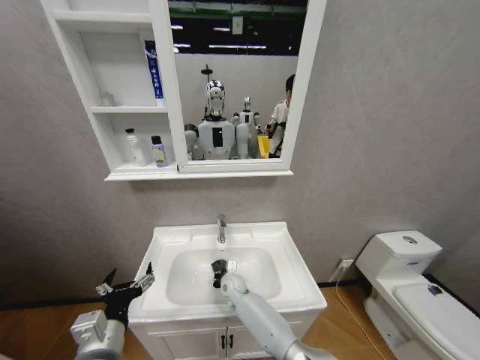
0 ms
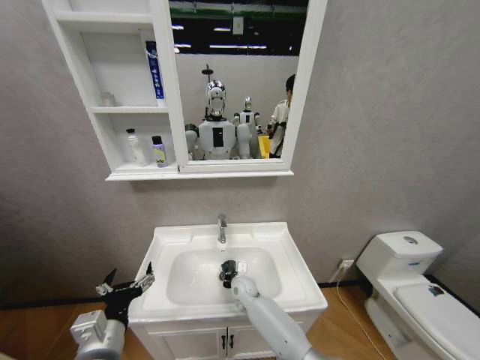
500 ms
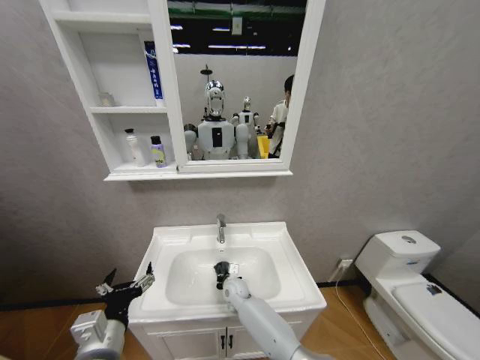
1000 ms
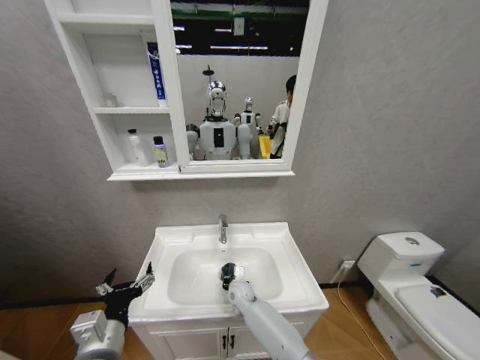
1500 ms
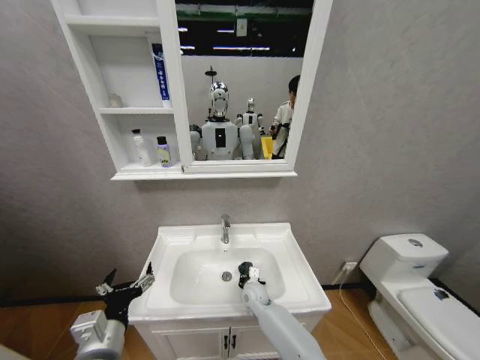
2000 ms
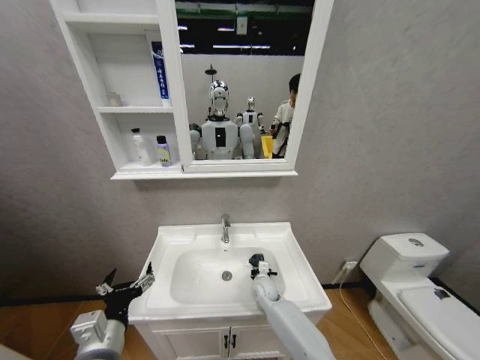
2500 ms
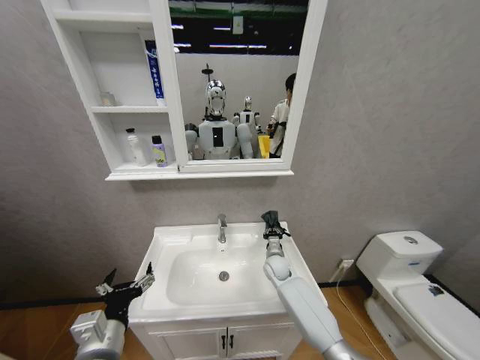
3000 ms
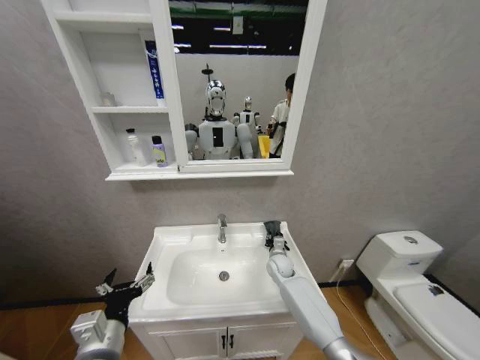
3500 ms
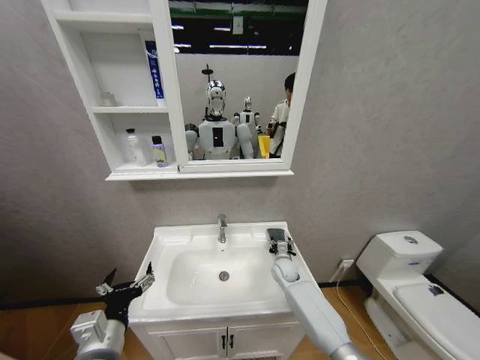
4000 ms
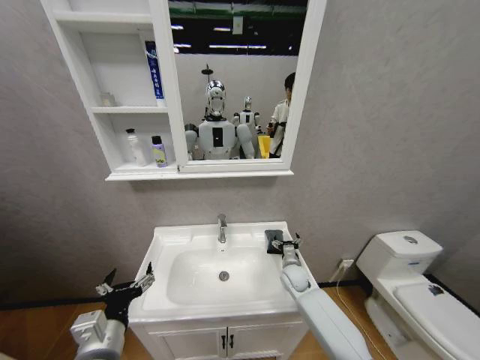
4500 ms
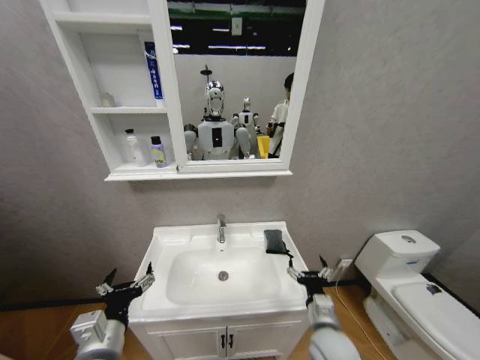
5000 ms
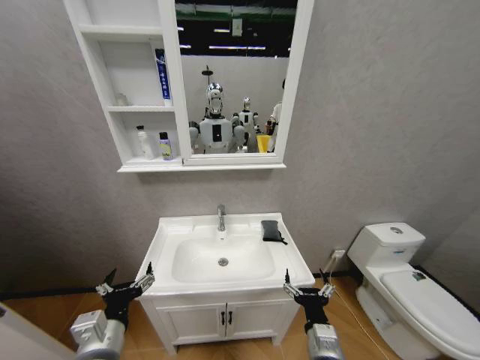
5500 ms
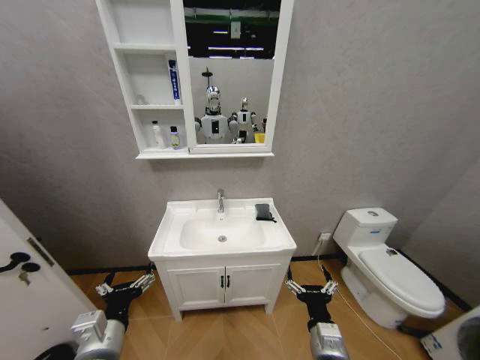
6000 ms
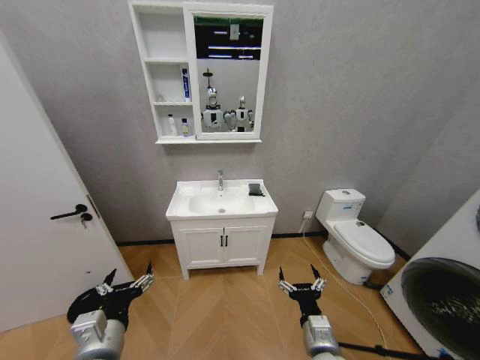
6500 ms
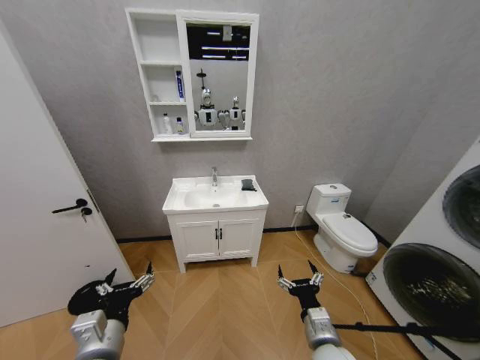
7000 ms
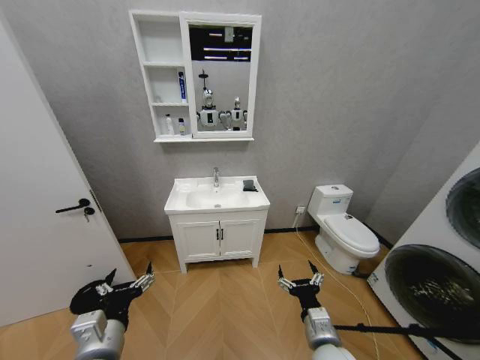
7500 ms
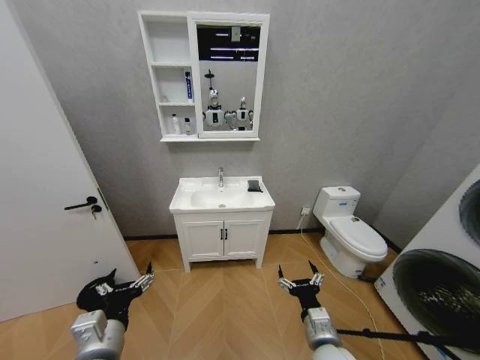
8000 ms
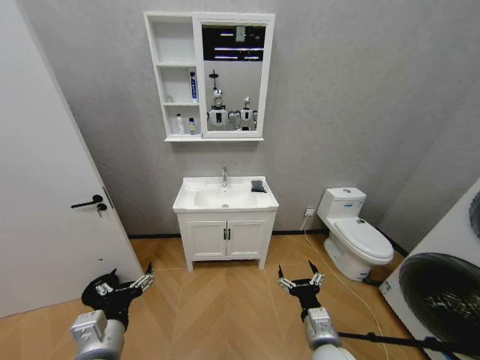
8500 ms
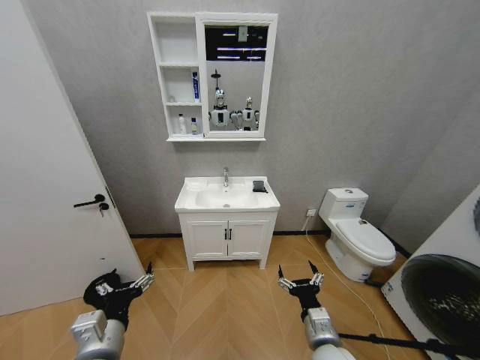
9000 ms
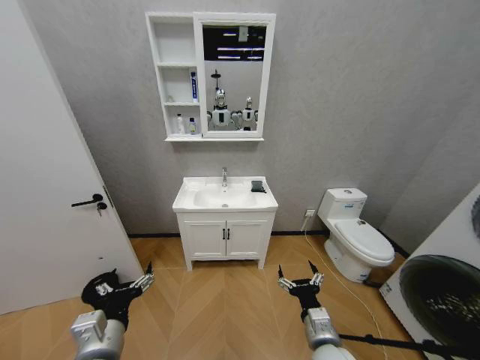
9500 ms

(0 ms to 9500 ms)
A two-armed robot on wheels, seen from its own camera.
Task of the whole recording: Move facial cleanser and shampoo from washbasin to cabinet, then wipe washbasin with towel.
0 ms - 2000 ms: The right gripper is displaced to the right by roughly 10 cm.
2000 ms - 4000 ms: The right gripper heads to the right, forward and upward, covering some 15 cm, and opens its fingers.
4000 ms - 5500 ms: The right gripper travels backward by about 30 cm.
7500 ms - 9500 ms: The two grippers keep their place.

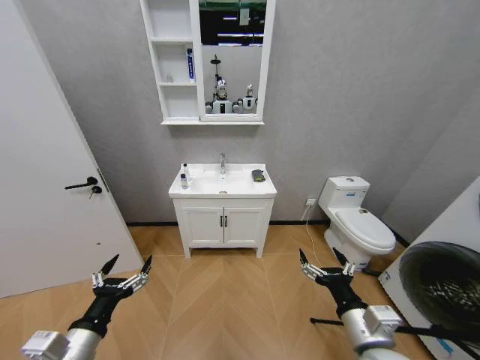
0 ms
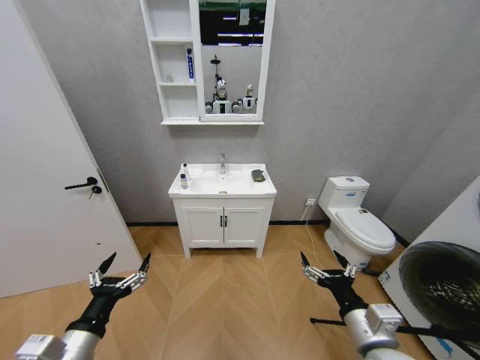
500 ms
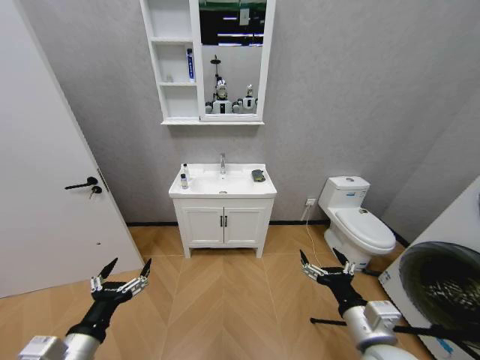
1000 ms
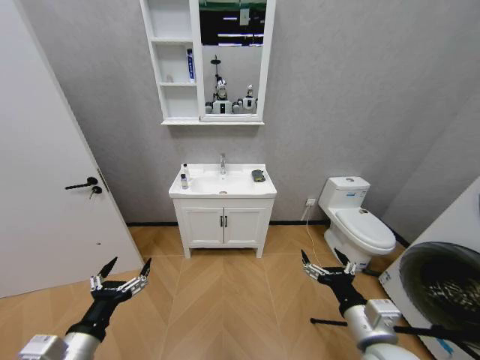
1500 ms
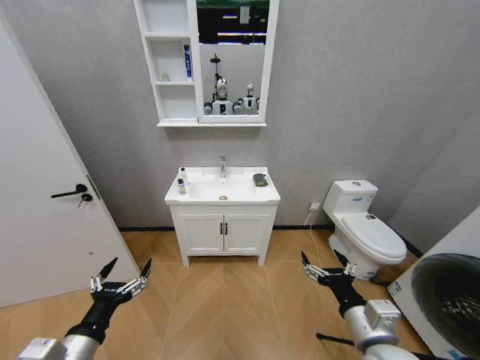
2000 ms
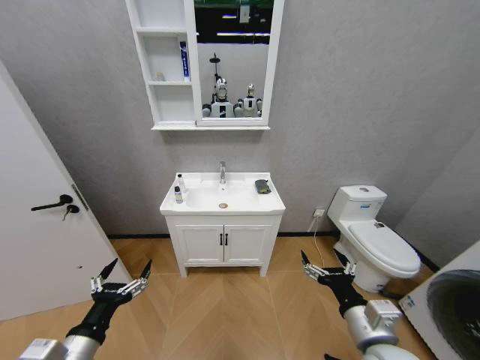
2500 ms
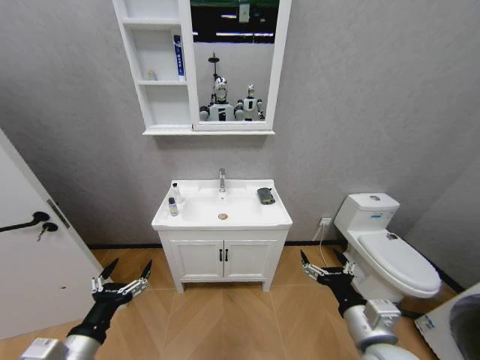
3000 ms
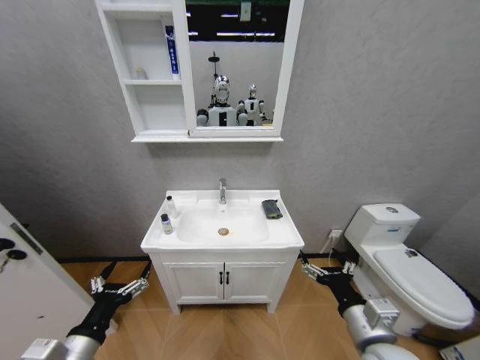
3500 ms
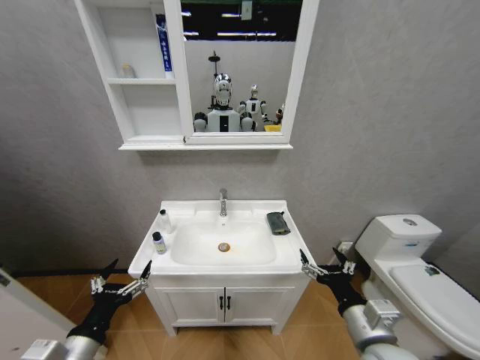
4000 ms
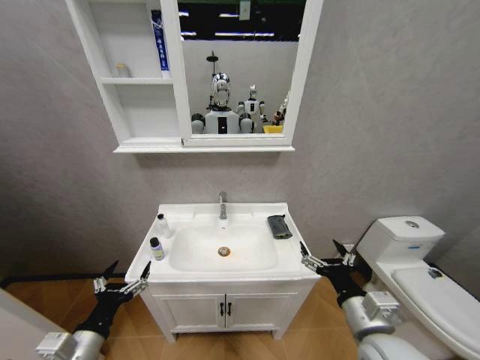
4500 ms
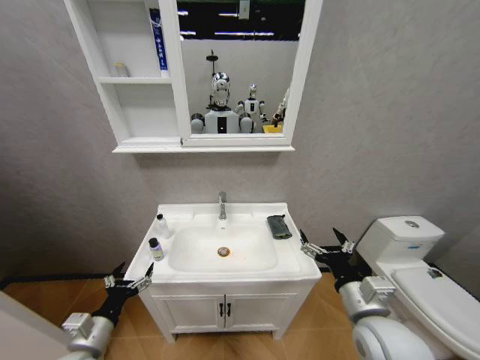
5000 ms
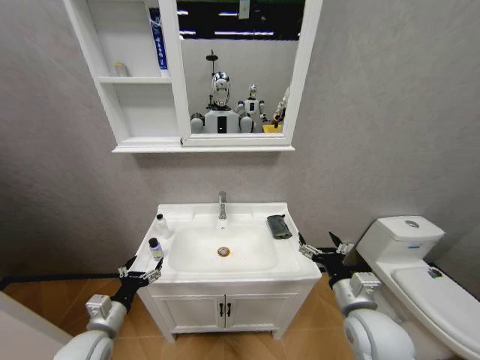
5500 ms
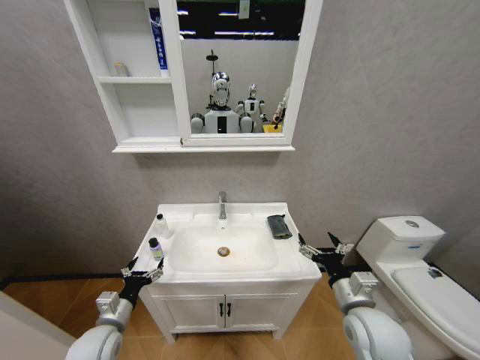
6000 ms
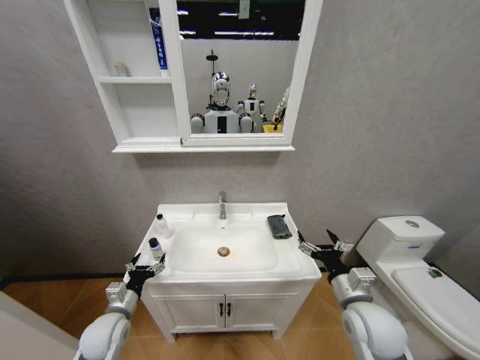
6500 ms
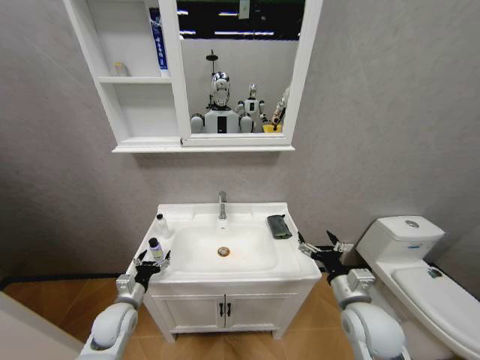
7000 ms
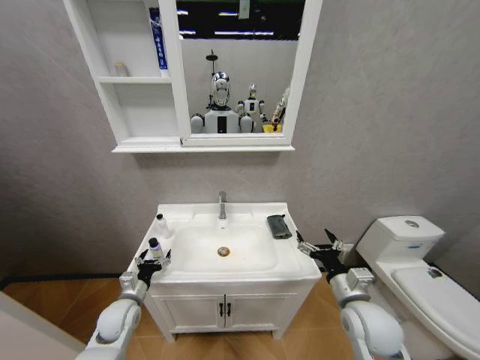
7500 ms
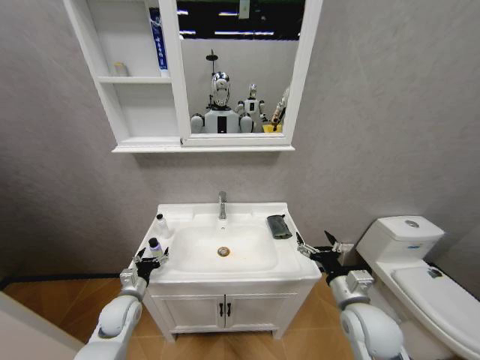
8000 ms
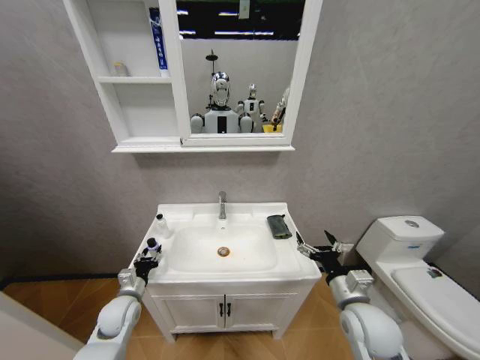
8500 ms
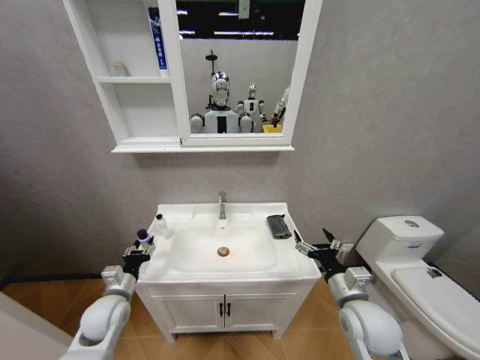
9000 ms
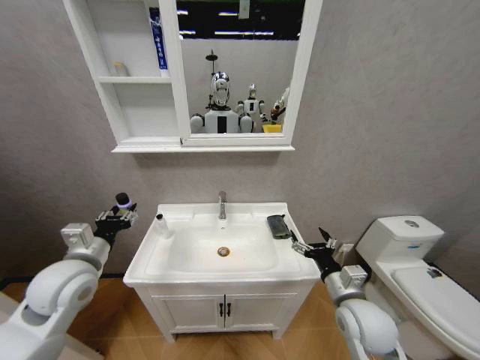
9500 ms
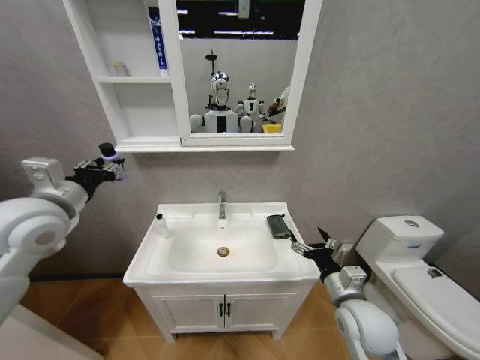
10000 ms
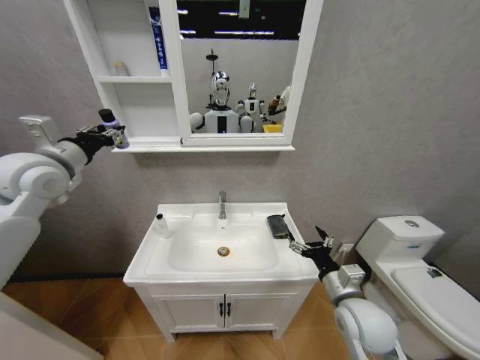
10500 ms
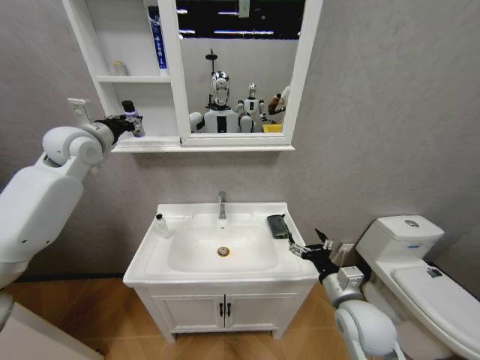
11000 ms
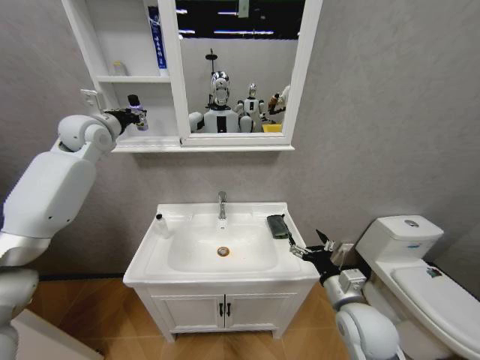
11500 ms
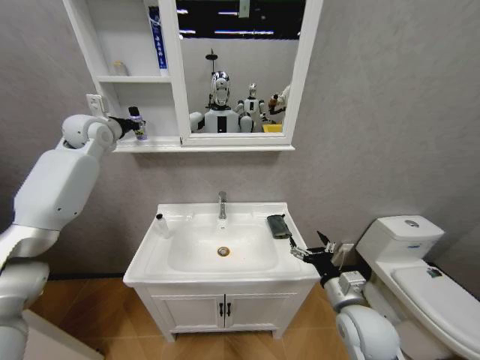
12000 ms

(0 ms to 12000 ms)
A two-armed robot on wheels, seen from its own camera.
Task of the whole recording: Move facial cleanser and shampoo from washbasin to cabinet, then wipe washbasin with towel.
4000 ms - 6000 ms: The right gripper heads forward, covering some 5 cm, while the left gripper moves forward and downward, approximately 15 cm.
6000 ms - 8000 ms: The left gripper goes roughly 10 cm forward.
8000 ms - 10000 ms: The left gripper travels upward by roughly 35 cm, and closes up.
10000 ms - 12000 ms: The left gripper is displaced forward by about 25 cm.

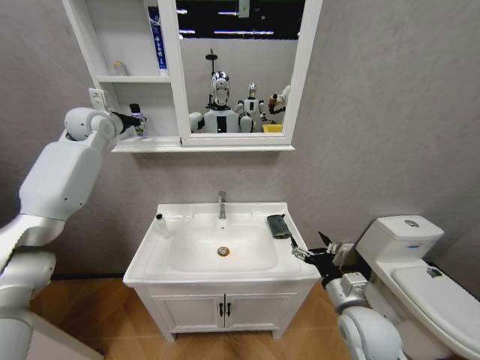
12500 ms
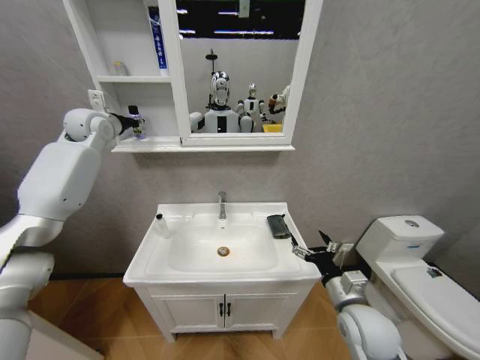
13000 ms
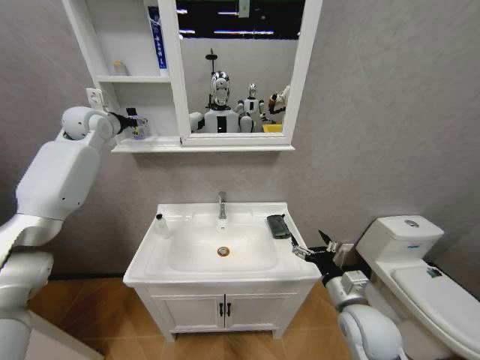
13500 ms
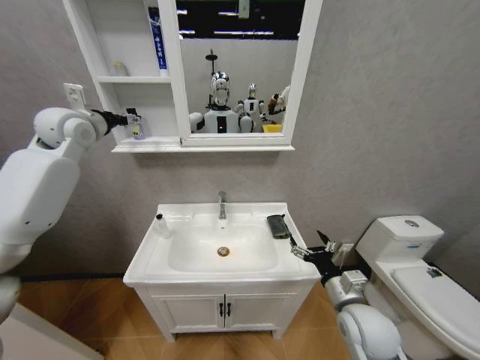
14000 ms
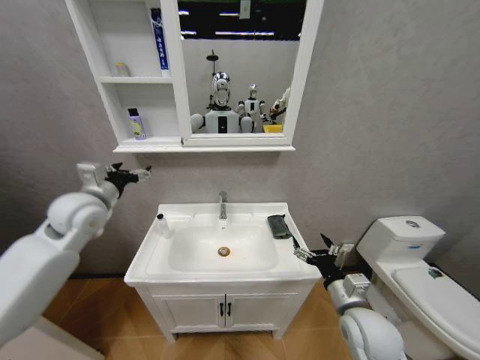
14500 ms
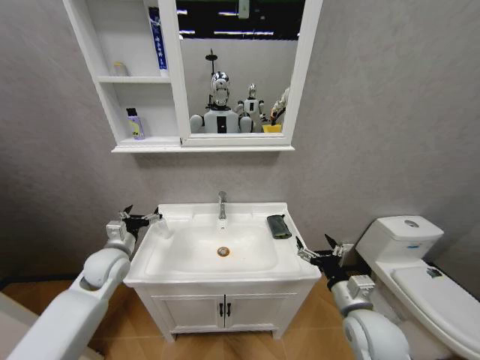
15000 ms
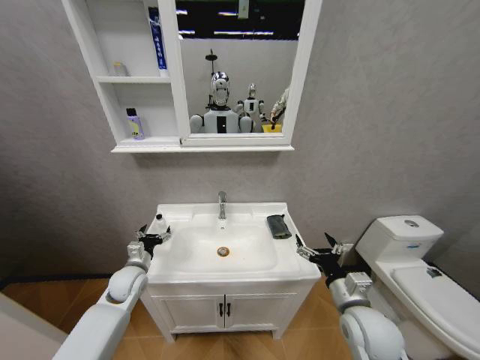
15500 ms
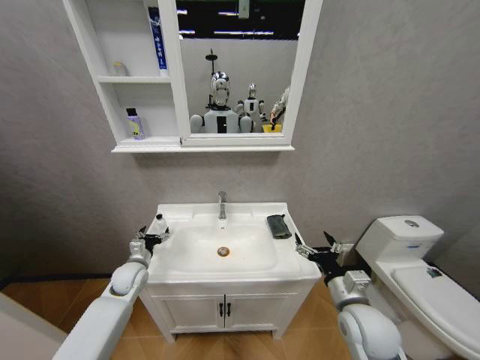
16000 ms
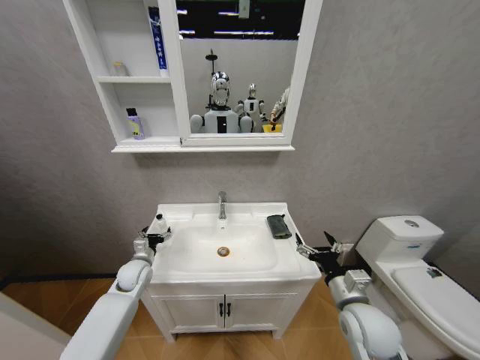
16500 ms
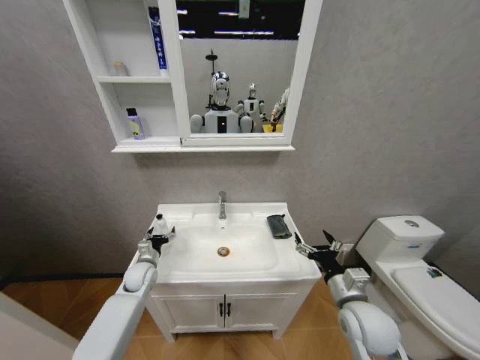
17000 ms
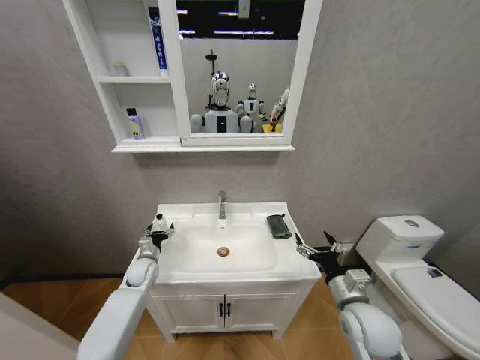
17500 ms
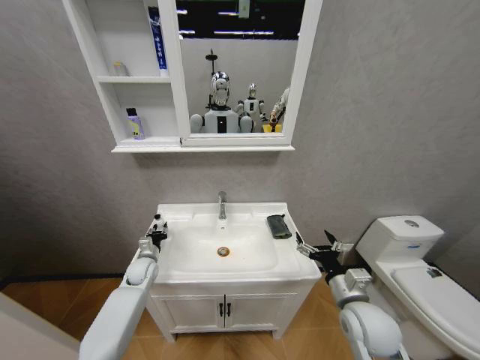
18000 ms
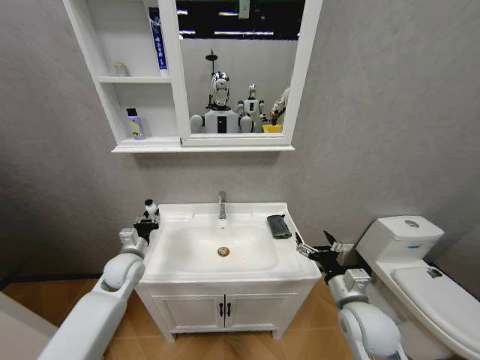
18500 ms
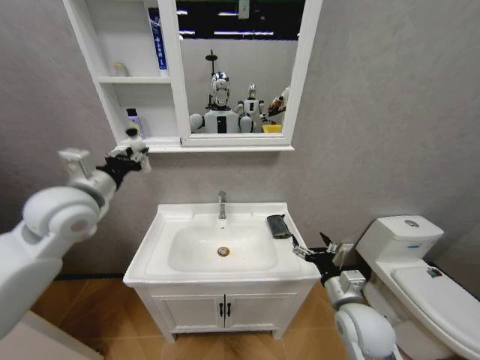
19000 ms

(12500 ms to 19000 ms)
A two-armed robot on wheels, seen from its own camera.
Task of the whole recording: Move facial cleanser and shampoo from washbasin to cabinet, then wipe washbasin with towel.
12500 ms - 14500 ms: The left gripper is displaced backward and downward by approximately 25 cm, and opens up.
14500 ms - 17000 ms: The left gripper moves downward, some 30 cm.
17000 ms - 19000 ms: The left gripper heads upward, covering approximately 35 cm, and closes.
